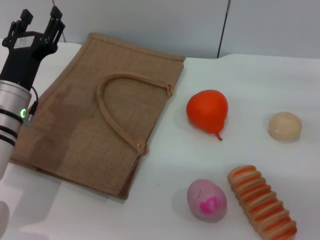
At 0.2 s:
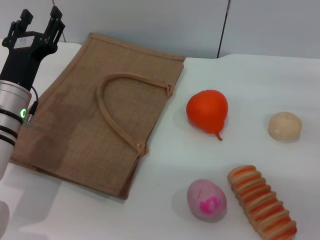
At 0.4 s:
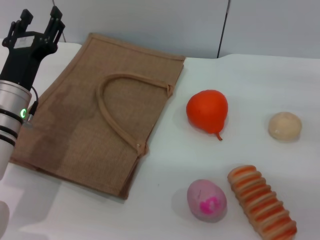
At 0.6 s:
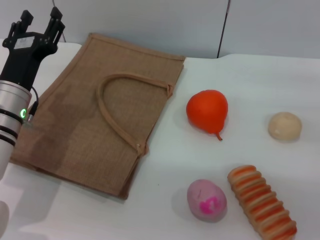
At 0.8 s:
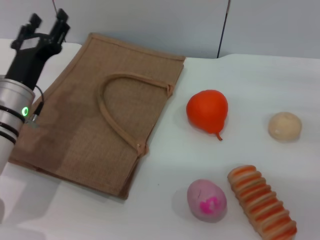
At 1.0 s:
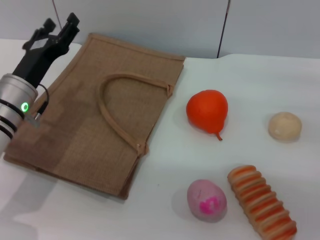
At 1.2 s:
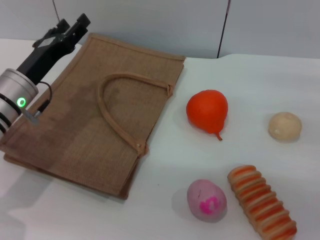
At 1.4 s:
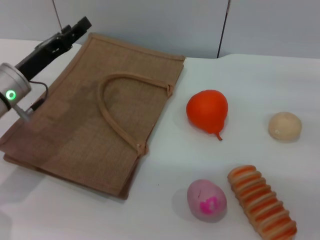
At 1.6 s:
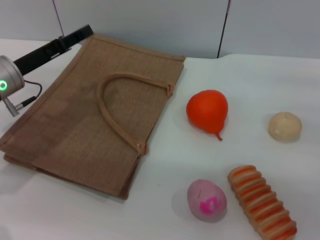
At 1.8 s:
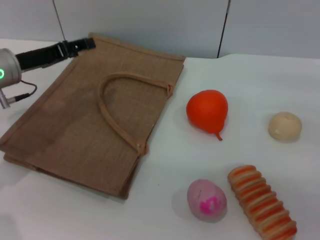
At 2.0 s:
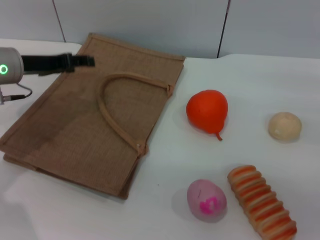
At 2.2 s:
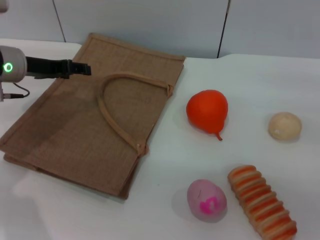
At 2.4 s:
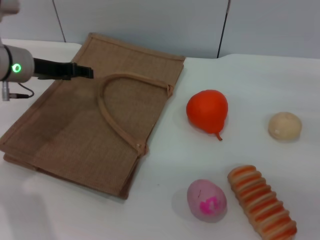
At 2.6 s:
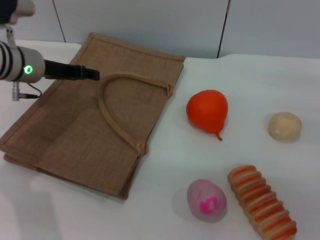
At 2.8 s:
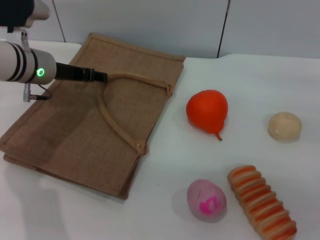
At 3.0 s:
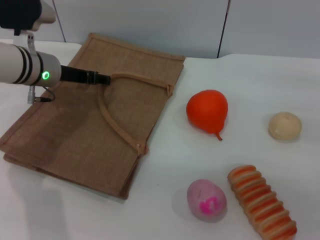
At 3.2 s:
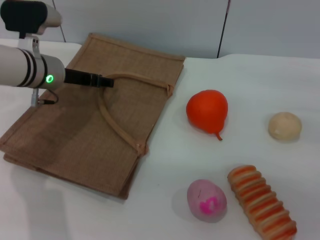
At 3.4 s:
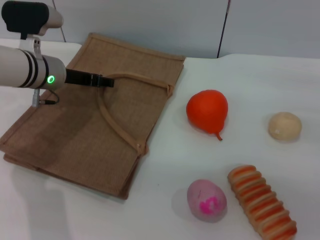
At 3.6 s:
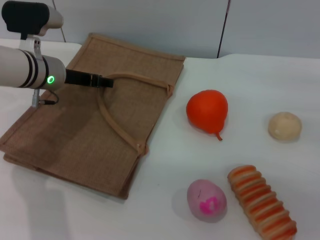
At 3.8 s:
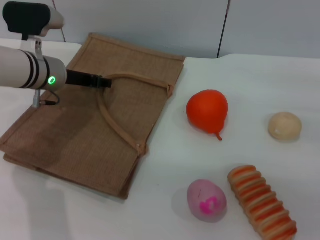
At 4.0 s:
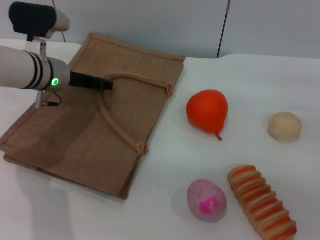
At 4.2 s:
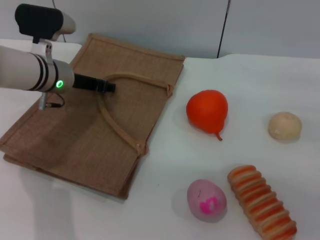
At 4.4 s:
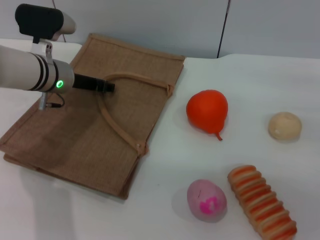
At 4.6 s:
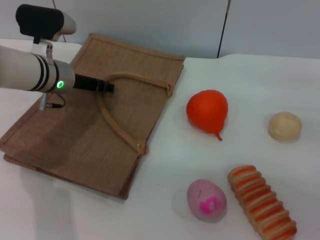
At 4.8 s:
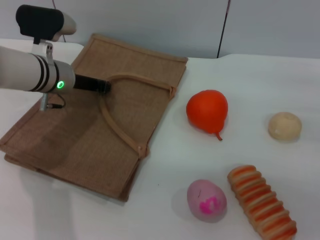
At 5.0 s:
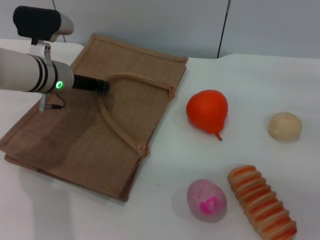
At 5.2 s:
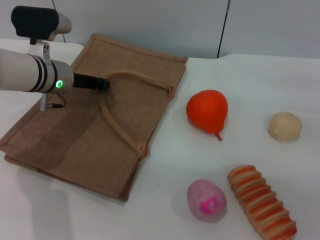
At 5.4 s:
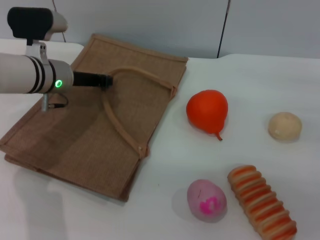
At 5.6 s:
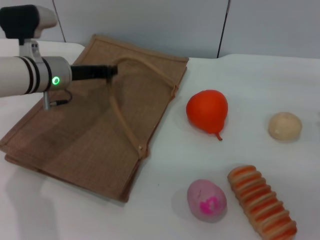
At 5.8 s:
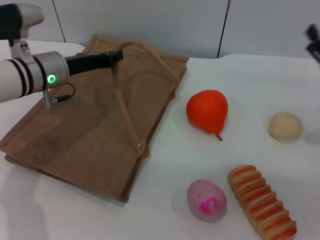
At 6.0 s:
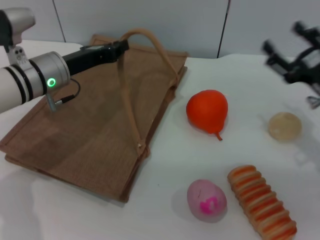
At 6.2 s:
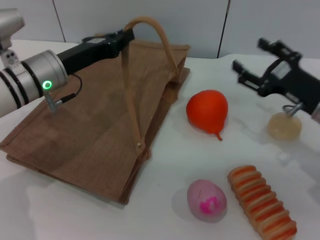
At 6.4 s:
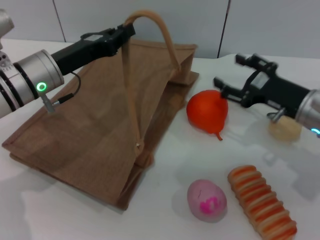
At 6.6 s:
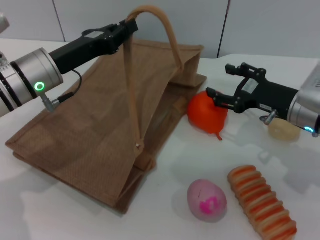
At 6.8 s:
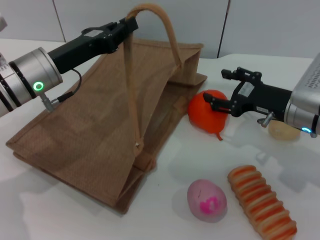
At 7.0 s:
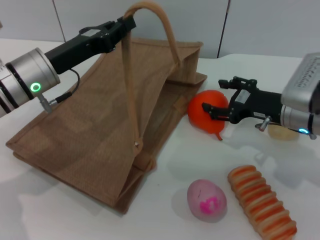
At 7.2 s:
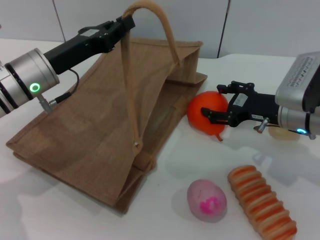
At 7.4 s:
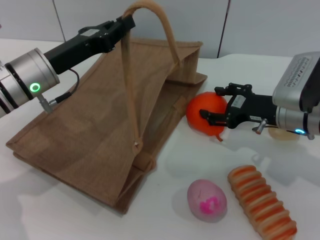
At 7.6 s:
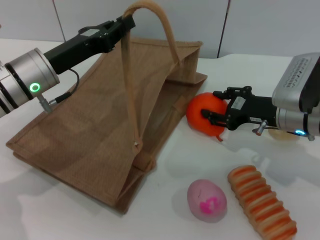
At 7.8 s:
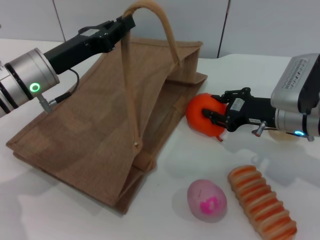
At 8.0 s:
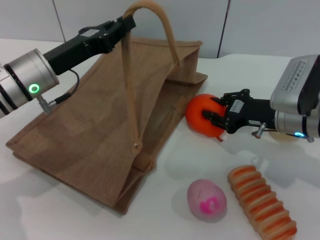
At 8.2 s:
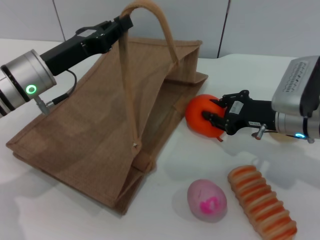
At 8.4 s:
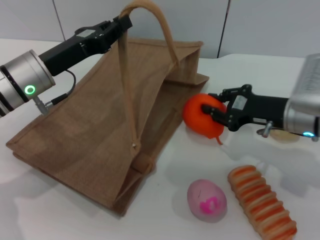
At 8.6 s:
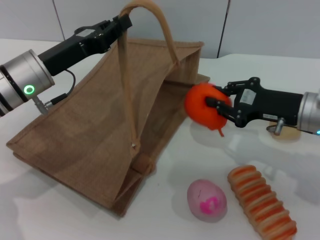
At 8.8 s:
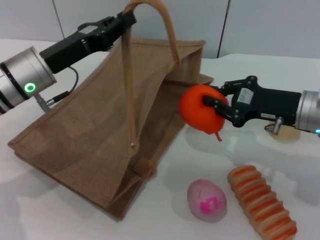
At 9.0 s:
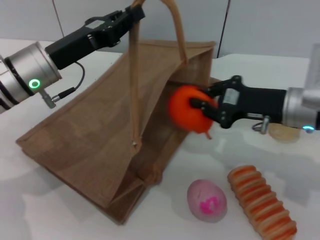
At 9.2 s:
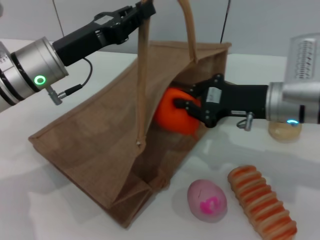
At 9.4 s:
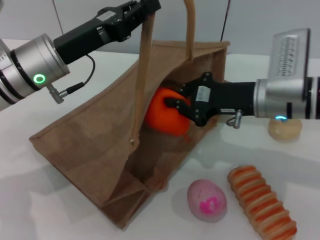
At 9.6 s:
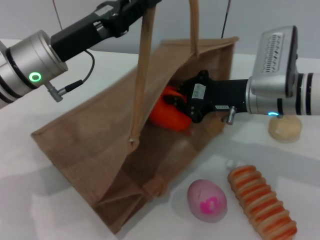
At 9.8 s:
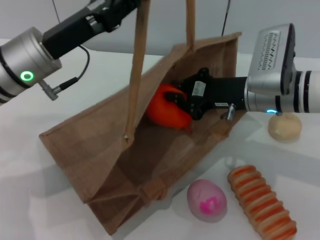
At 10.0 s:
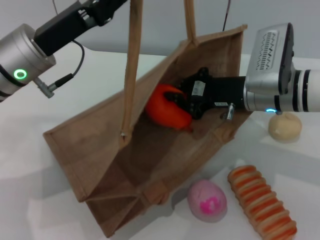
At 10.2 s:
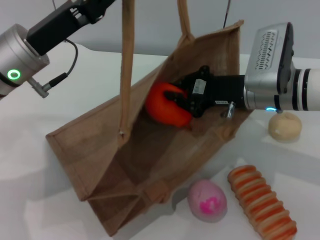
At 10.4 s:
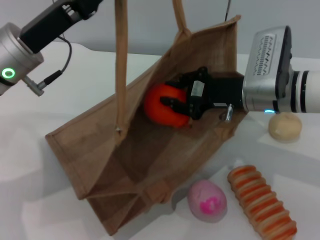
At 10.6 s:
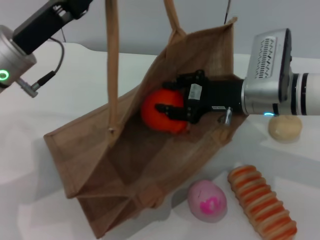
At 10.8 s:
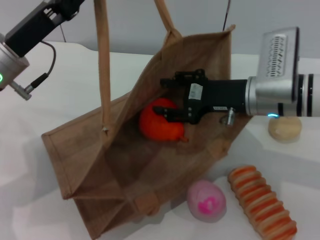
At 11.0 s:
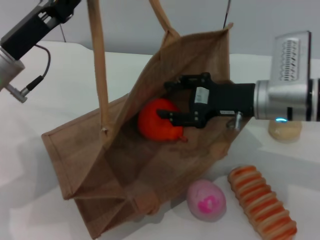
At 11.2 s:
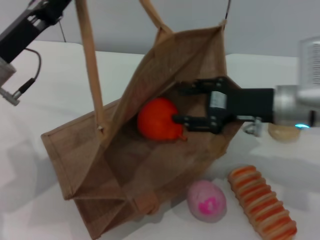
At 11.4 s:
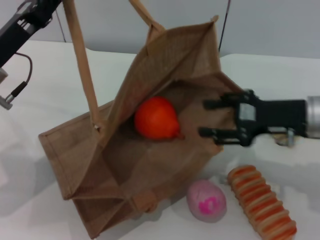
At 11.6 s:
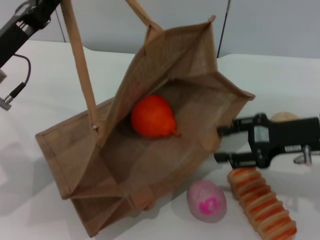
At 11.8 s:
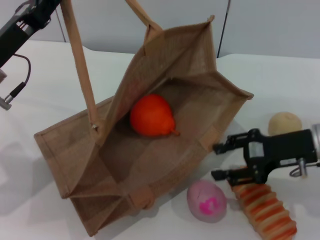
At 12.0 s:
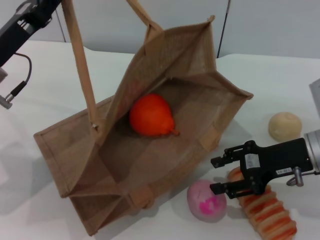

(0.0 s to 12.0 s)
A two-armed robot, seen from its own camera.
Task of the whole recording: pick up the orange and peach from the table and place it in the brown handbag.
Step, 0.0 s - 5.6 s: Lift the woven bag with the left gripper to open it.
Step, 5.8 s - 6.8 s: Pick up the orange with the right gripper.
Step, 7.0 s - 11.2 s: Place the orange into the woven bag with the right gripper.
0.0 s - 1.6 s: The left gripper moves roughly 5 cm.
1.6 s - 3.0 s: The left gripper moves forward, about 5 cm.
3.0 s - 4.4 s: There are only small adjustments of the grippers.
4.4 s - 6.0 s: The left gripper closes up; the right gripper shifts roughly 5 cm to the left.
6.0 s - 7.6 s: The right gripper moves to the left, some 5 cm.
7.6 s - 9.0 s: The right gripper closes.
9.0 s - 10.4 s: The right gripper moves to the left, roughly 5 cm.
10.4 s - 12.0 s: The right gripper goes about 10 cm to the right and backward, and opens. The left gripper moves some 5 cm.

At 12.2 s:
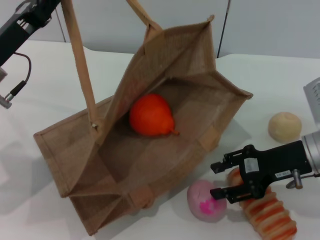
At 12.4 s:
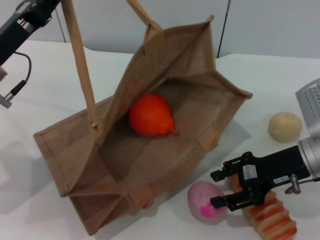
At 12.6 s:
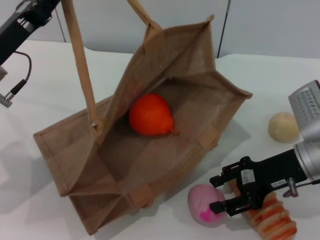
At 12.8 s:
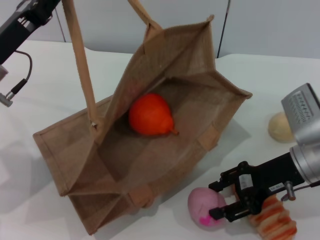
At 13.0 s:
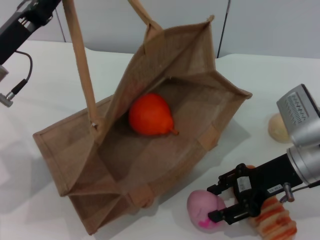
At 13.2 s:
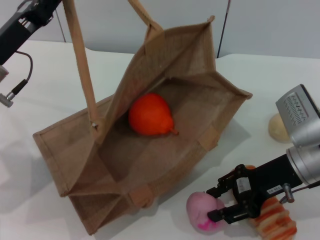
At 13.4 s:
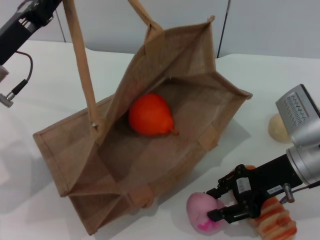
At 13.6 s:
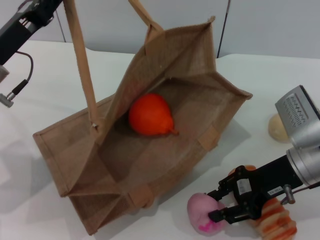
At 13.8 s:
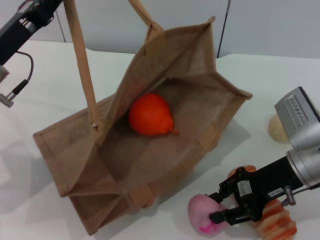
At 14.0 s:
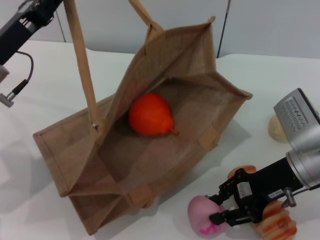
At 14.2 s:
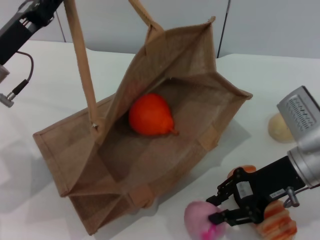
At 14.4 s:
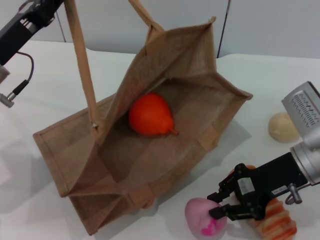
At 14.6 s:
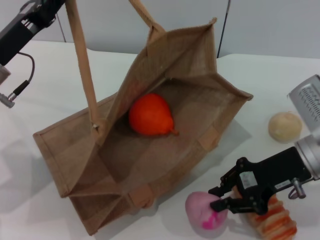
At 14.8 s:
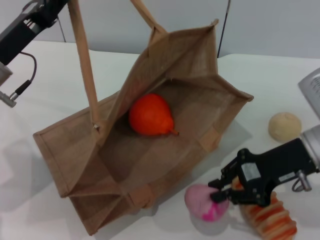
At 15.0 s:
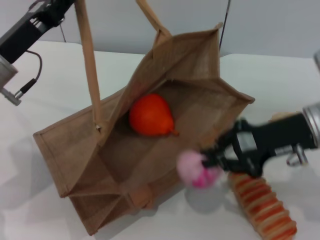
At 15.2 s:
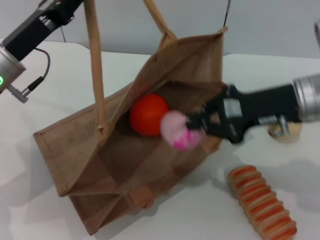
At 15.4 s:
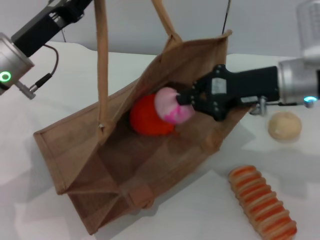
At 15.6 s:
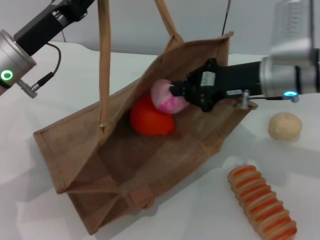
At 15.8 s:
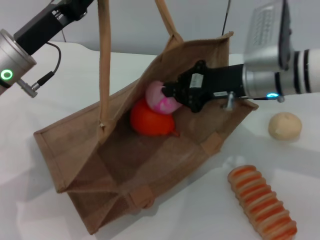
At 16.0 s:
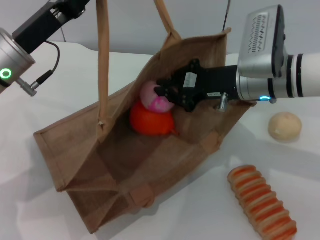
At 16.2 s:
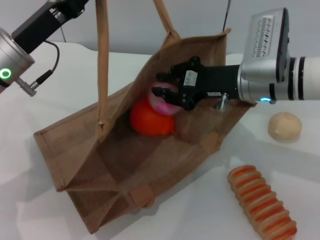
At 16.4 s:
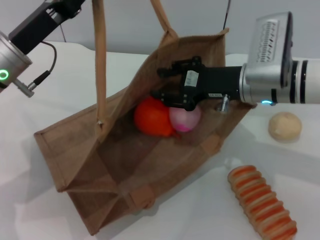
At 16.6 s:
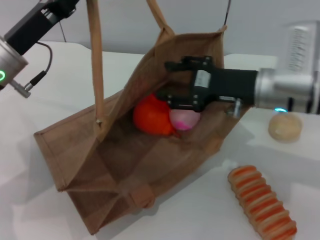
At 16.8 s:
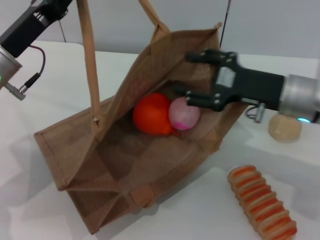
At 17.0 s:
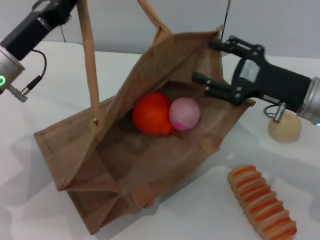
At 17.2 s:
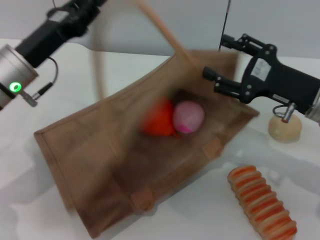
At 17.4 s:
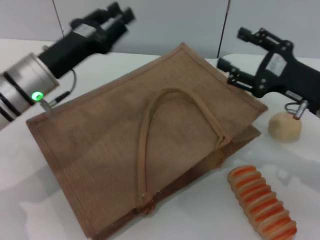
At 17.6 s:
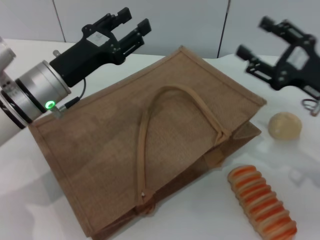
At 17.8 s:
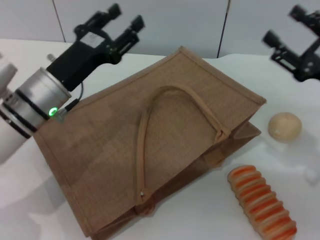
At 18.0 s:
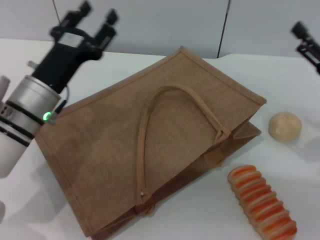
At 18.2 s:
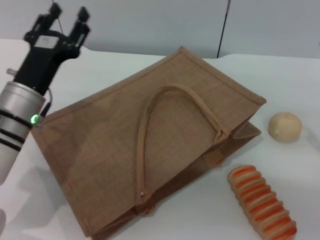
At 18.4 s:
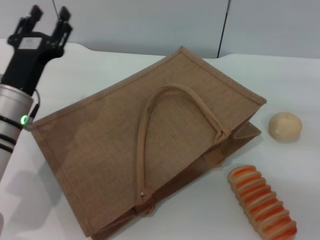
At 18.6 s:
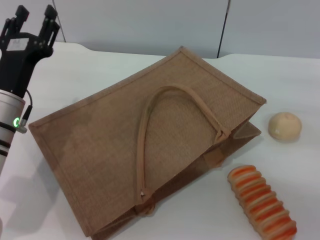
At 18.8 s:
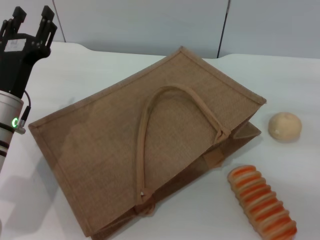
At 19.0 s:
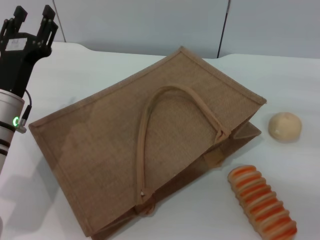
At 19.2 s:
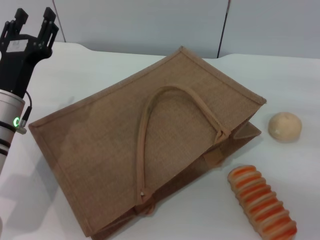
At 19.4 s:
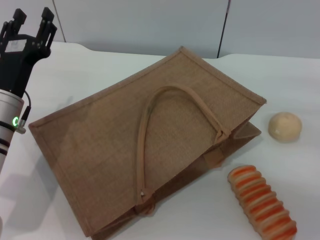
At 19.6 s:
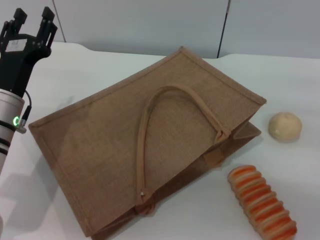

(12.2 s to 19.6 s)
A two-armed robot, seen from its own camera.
Task of the whole recording: pick up the orange and peach from the table and place it in the brown handbag.
Step, 12.2 s - 14.8 s: Pick up the peach with the right gripper.
Step, 15.0 s - 16.8 s: Place the peach into the woven bag with the right gripper.
Step, 17.0 s - 17.6 s: Lower the woven bag with the left gripper to close it.
12.2 s - 13.6 s: The grippers stay close to where they were, moving slightly.
13.6 s - 15.2 s: The right gripper goes roughly 5 cm upward, and closes.
15.2 s - 16.6 s: The right gripper changes place by about 5 cm, and opens its fingers.
16.6 s - 18.2 s: The right gripper heads to the right and backward, covering about 20 cm. The left gripper moves downward, roughly 5 cm, and opens its fingers.
18.2 s - 19.6 s: The grippers stay close to where they were, moving slightly.
